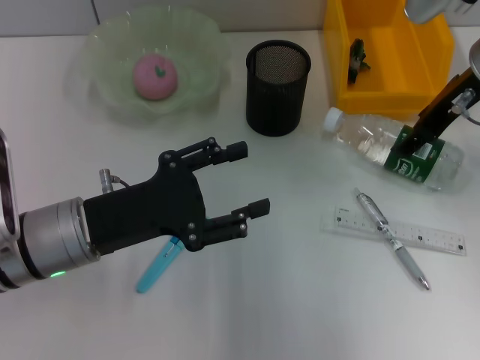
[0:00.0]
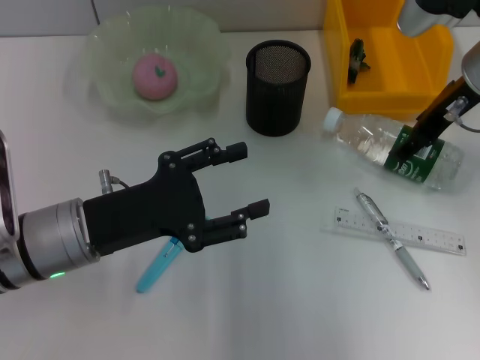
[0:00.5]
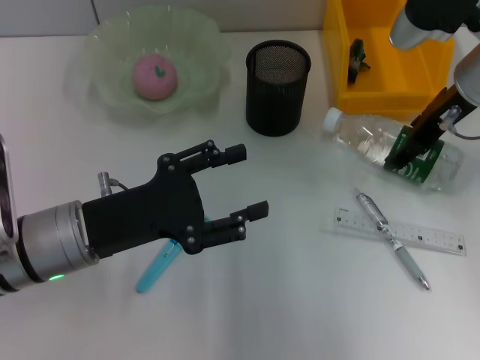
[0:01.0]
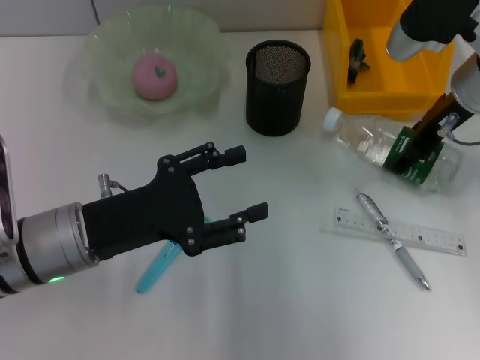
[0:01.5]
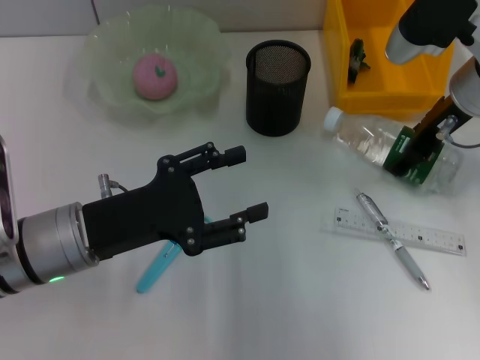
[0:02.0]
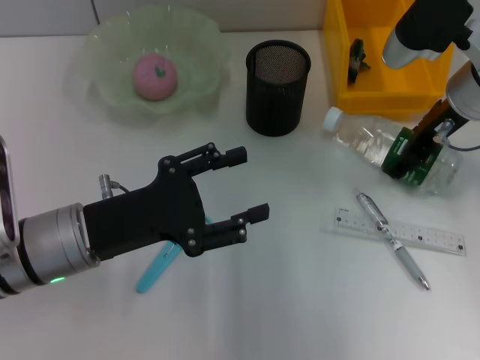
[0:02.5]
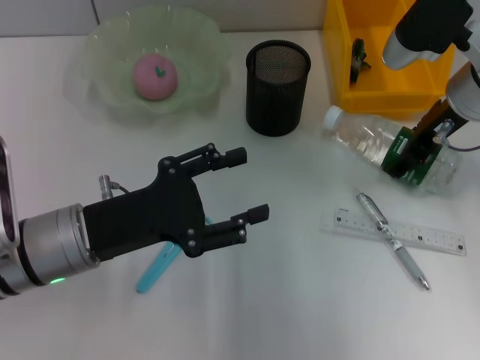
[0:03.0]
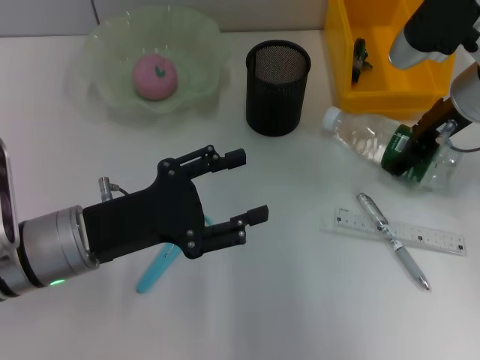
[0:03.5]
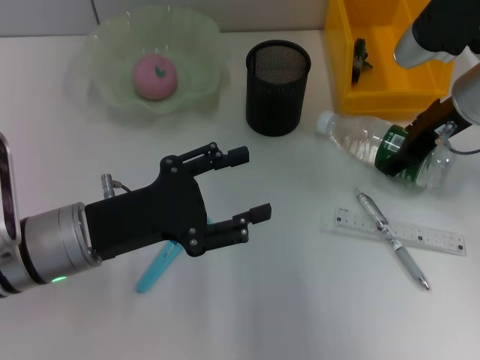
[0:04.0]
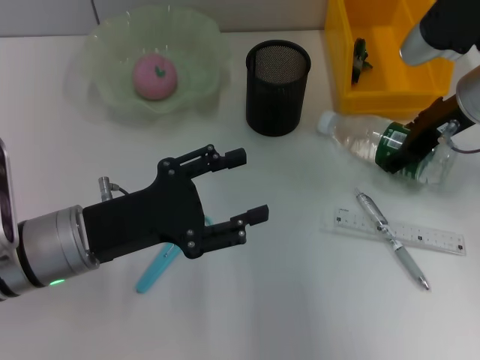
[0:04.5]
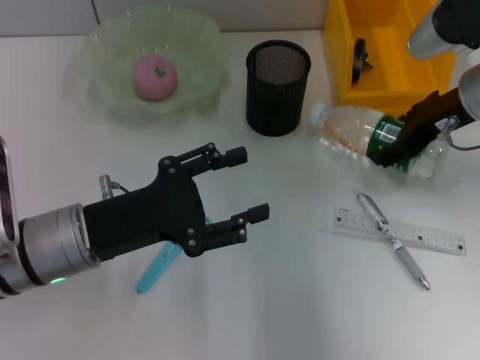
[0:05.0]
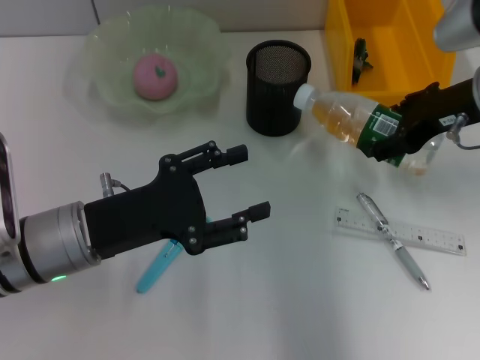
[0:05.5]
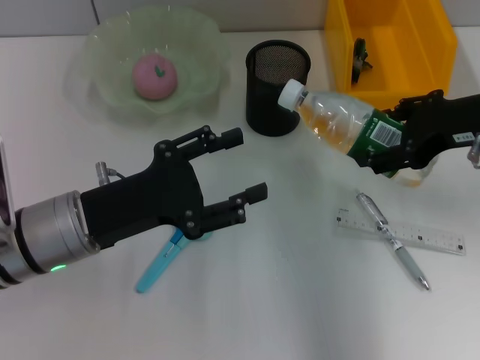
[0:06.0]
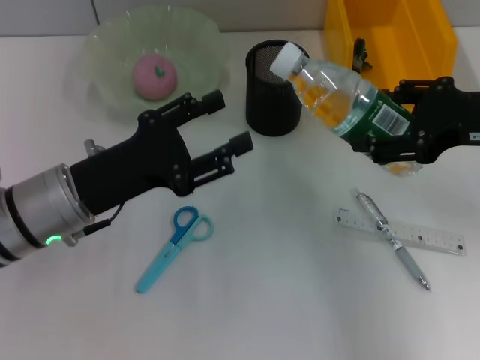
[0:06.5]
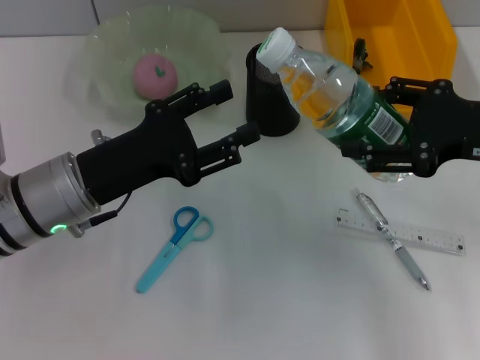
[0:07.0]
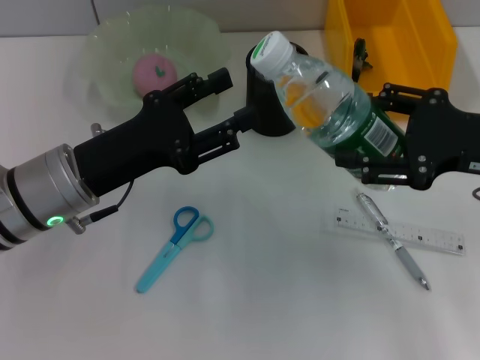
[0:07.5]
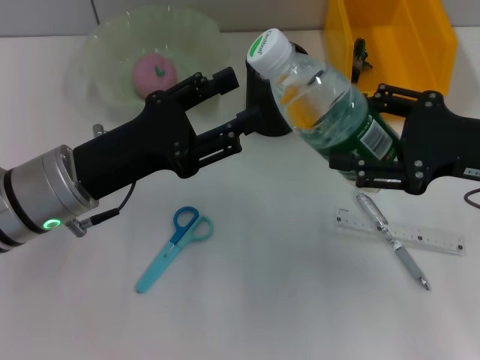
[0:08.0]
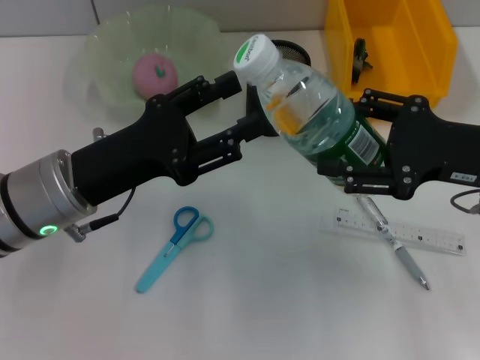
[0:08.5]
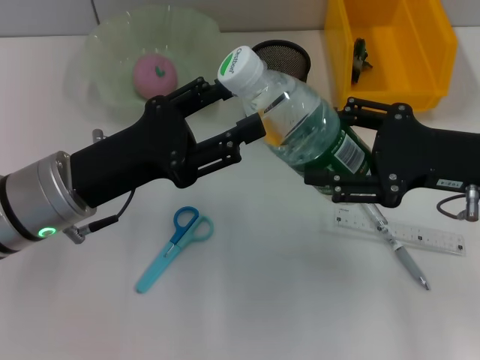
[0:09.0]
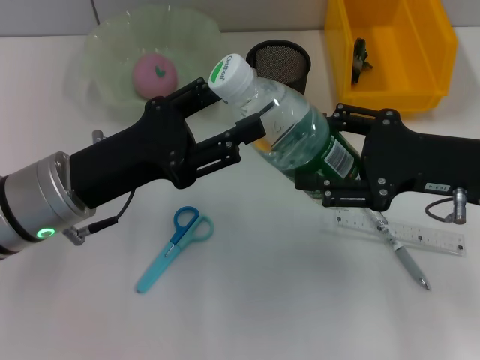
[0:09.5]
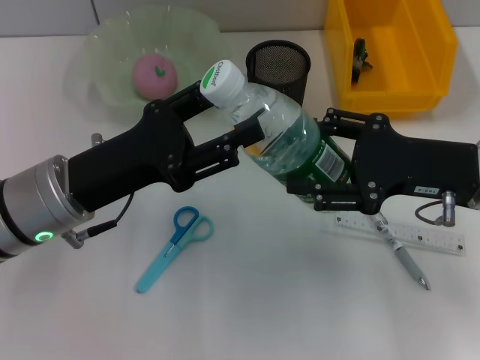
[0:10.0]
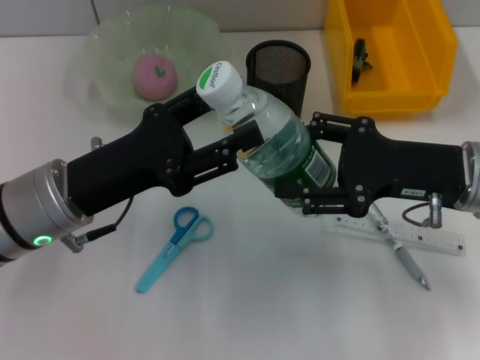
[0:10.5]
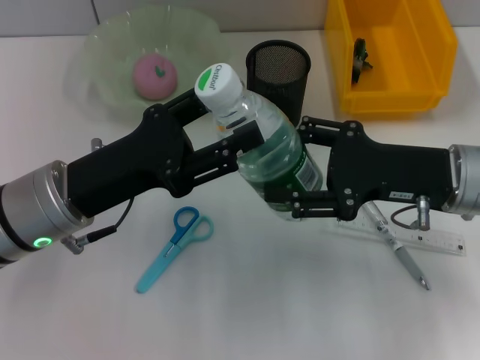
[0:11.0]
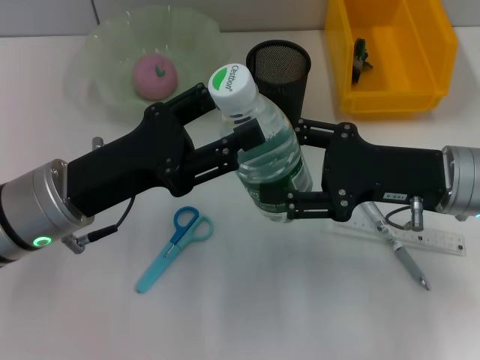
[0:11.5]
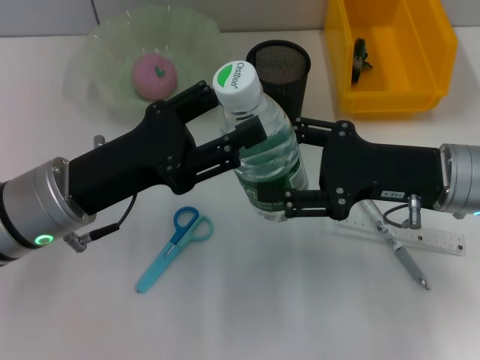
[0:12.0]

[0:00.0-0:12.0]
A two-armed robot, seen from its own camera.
Step, 0:00.0 to 0:03.0: Grab the water bottle with the right hand.
0:00.0 to 0:04.0: The grippers move only a little.
0:04.0 to 0:06.0: The right gripper heads backward, covering some 5 cm.
0:06.0 to 0:08.0: The right gripper moves some 5 cm.
0:08.0 to 0:10.0: The grippers make only small movements.
0:10.0 to 0:12.0: The grippers move only a little.

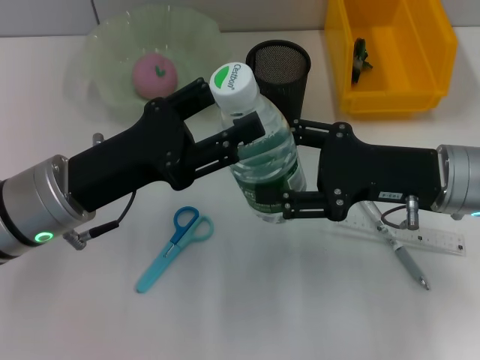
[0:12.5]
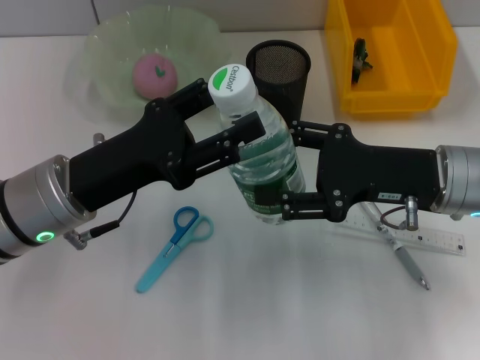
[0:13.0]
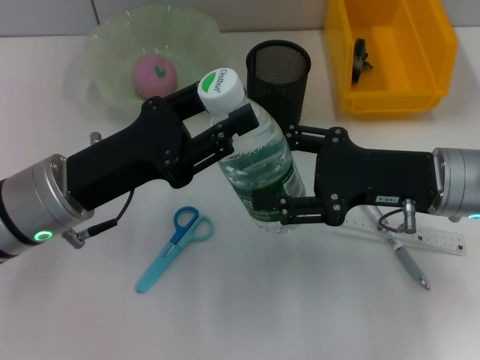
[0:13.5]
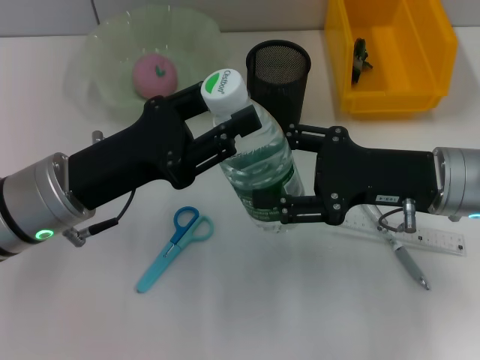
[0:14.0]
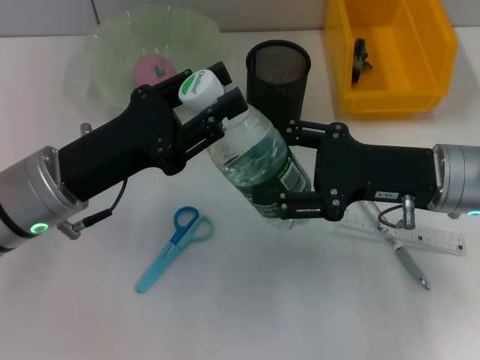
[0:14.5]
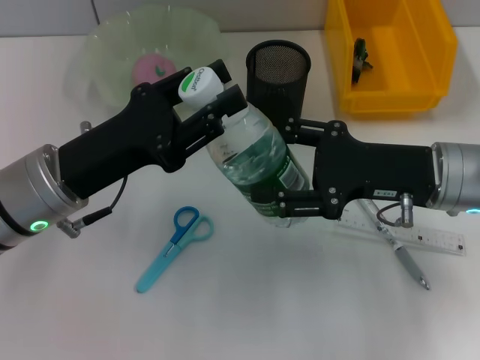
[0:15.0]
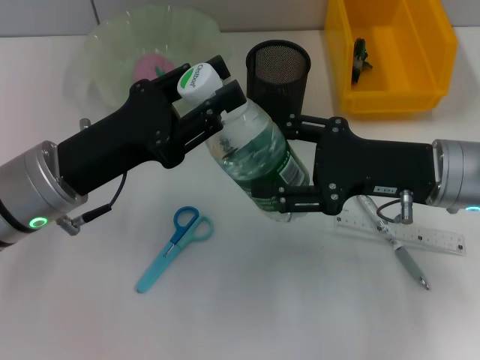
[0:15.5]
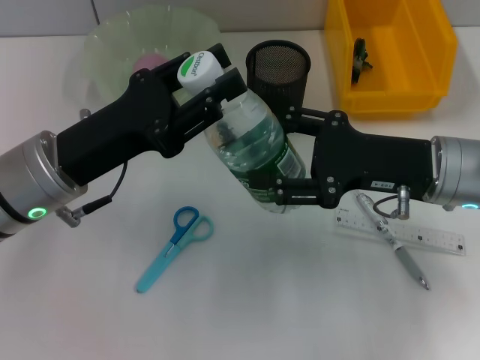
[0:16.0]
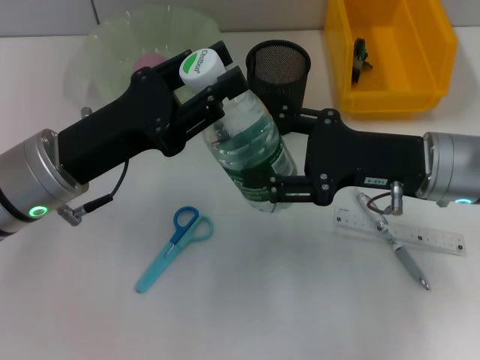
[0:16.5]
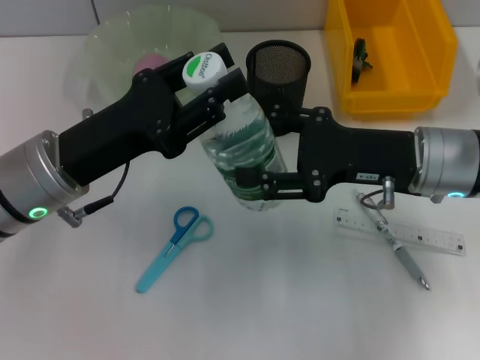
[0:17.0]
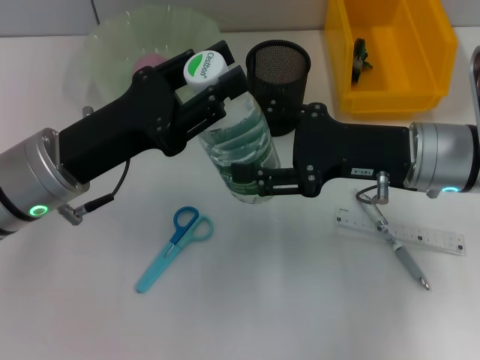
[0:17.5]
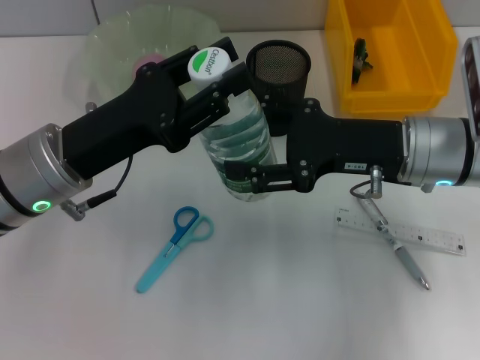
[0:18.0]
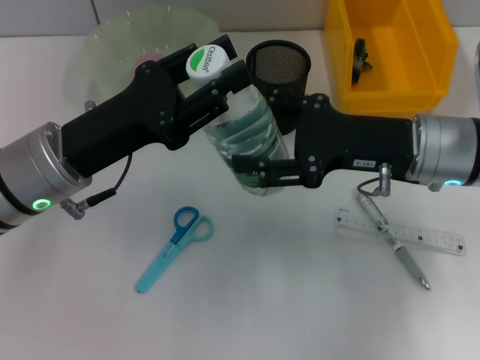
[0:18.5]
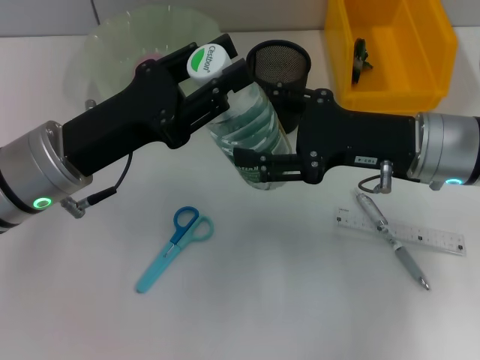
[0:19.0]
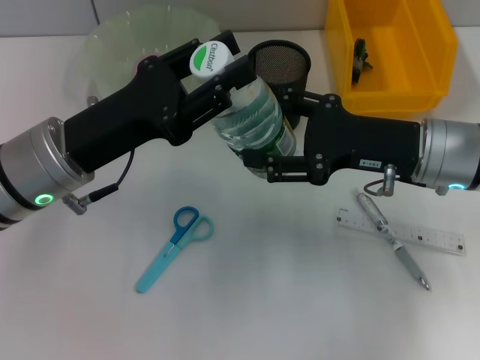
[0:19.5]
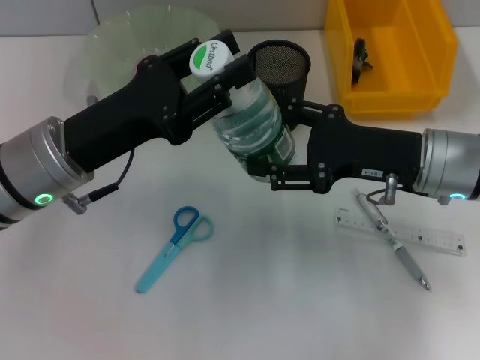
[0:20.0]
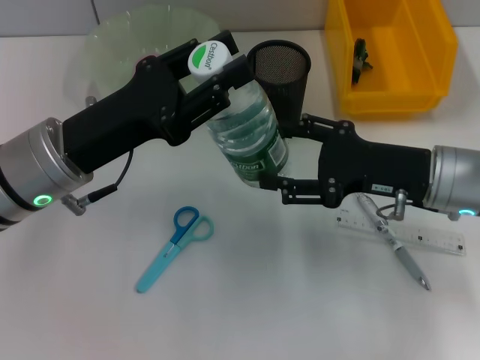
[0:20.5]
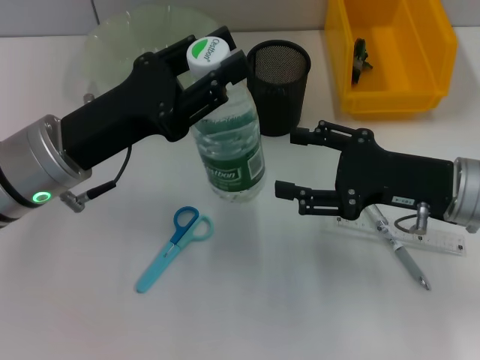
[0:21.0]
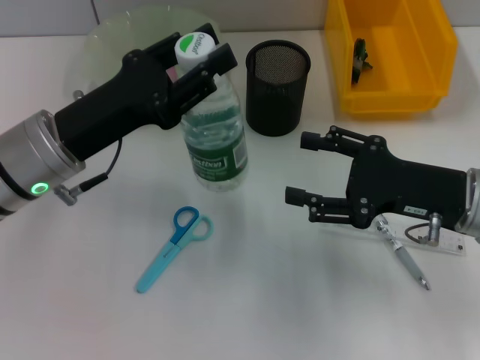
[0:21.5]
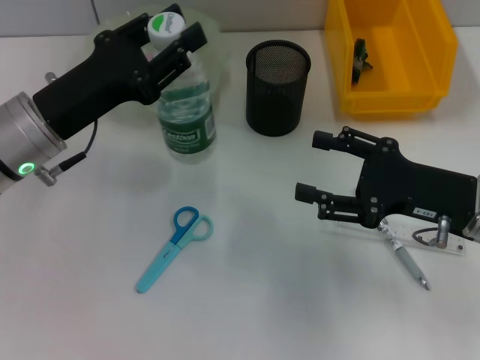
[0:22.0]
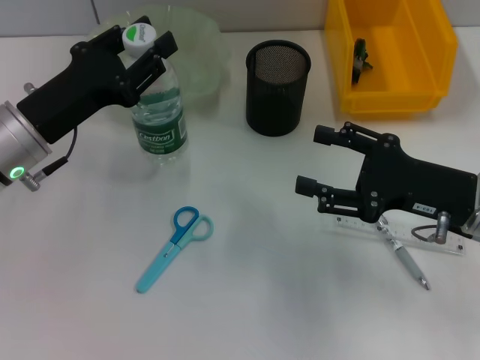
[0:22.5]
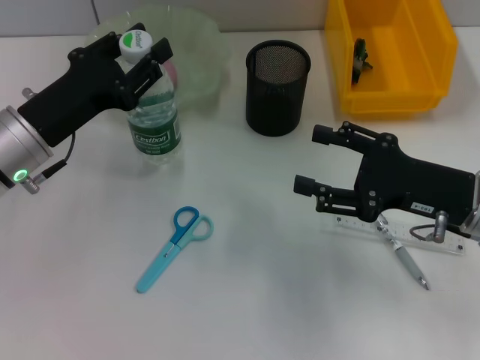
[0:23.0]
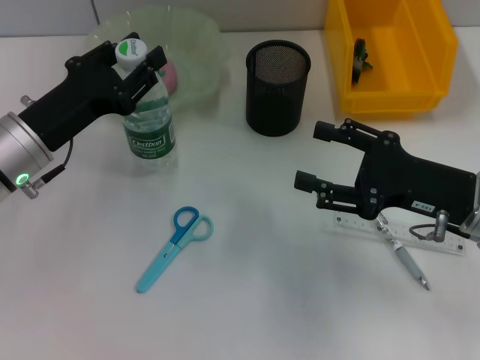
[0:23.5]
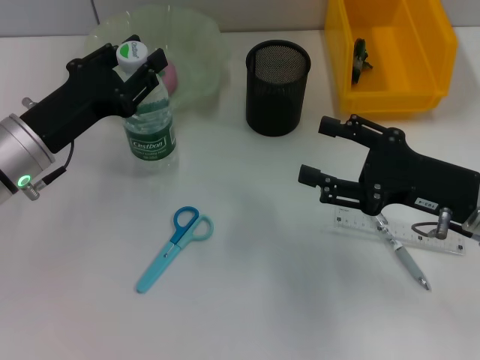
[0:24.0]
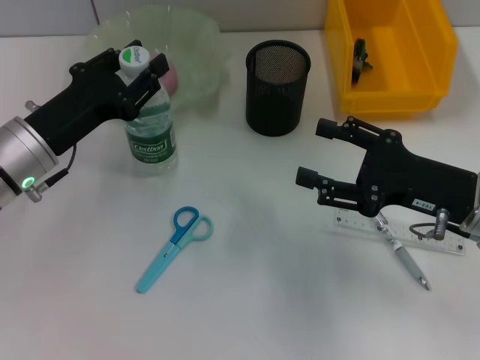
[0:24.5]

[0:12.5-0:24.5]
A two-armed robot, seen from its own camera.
Step, 0:12.5 to 0:20.5: Pass the water bottle from the right hand to the left hand.
0:12.5 to 0:14.5: The left gripper closes its fingers.
0:14.5 to 0:16.5: The two grippers keep their place.
0:16.5 to 0:20.5: There are only small adjustments of the grippers.
0:20.5 to 0:22.5: The left gripper changes place by some 5 cm.
0:22.5 to 0:24.5: The grippers make only small movements.

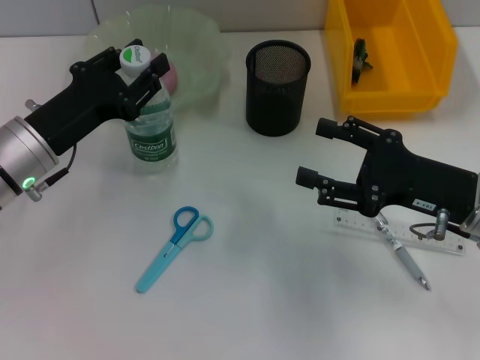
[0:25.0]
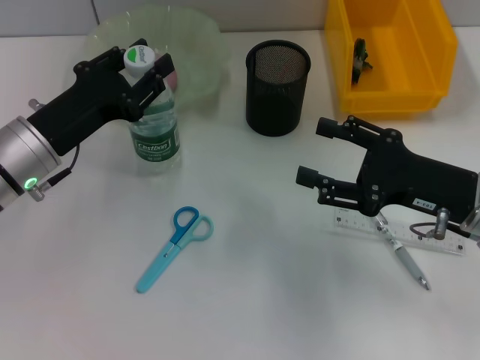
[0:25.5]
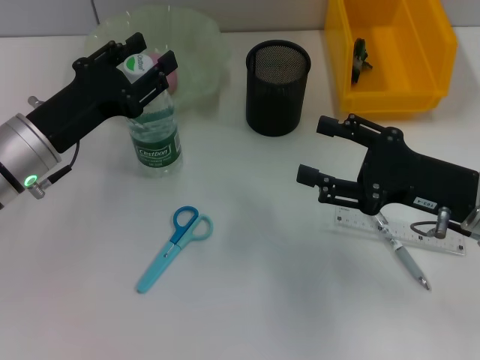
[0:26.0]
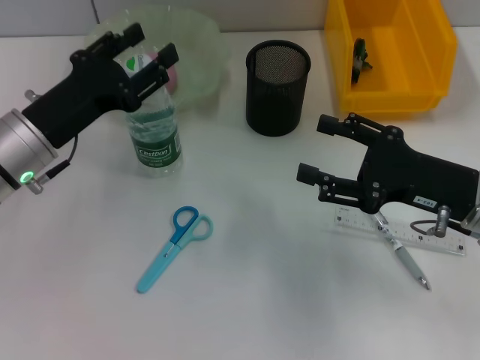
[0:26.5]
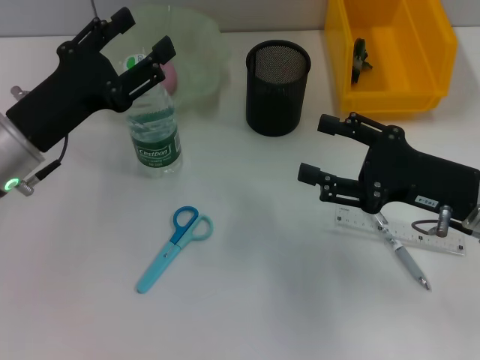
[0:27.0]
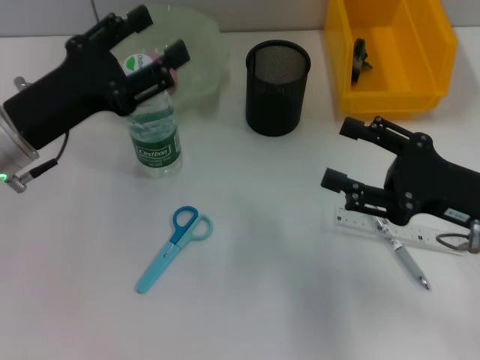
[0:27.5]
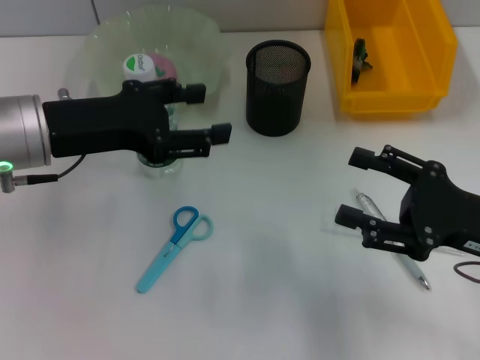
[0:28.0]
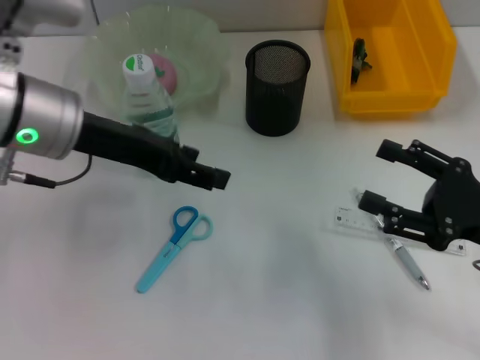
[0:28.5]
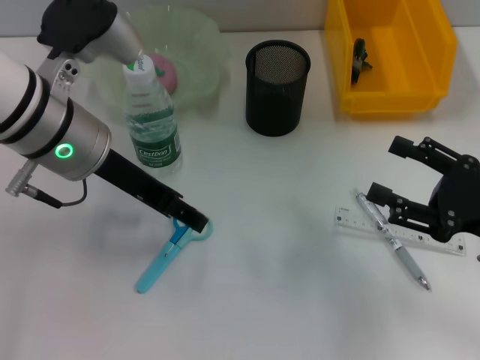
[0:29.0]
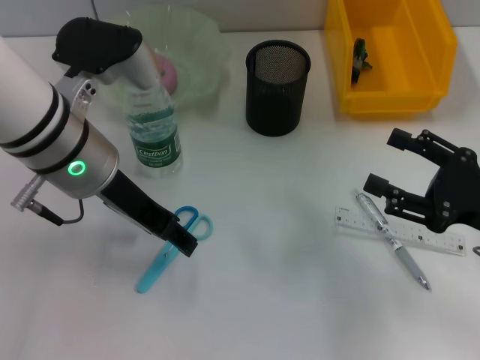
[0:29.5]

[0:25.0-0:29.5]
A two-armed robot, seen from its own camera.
0:25.0 to 0:27.0: The grippers move only a little.
0:27.0 to 0:29.5: The right gripper moves to the right, roughly 5 cm. Meanwhile the left gripper is displaced to the right and upward by some 10 cm.
